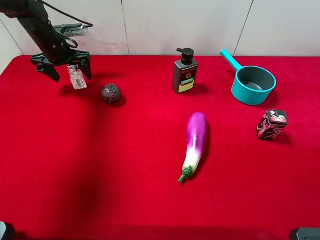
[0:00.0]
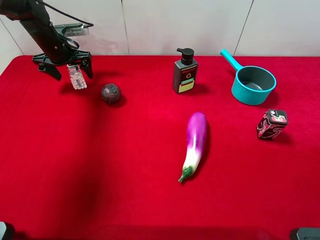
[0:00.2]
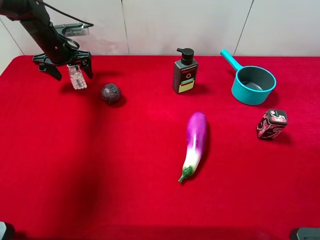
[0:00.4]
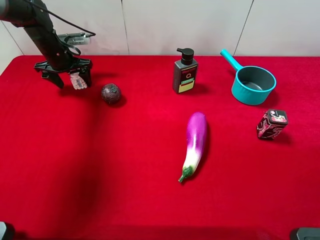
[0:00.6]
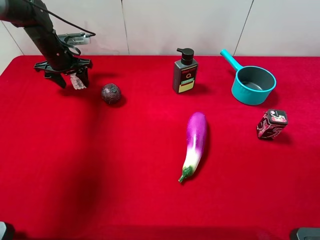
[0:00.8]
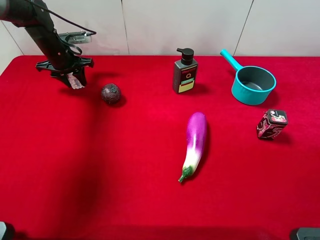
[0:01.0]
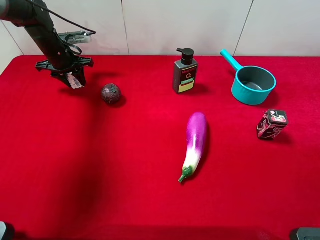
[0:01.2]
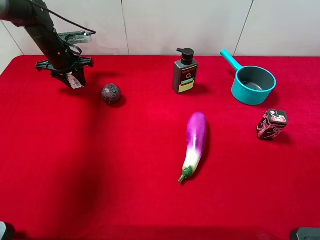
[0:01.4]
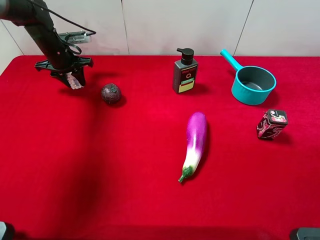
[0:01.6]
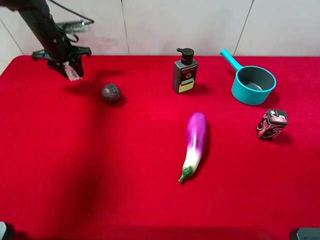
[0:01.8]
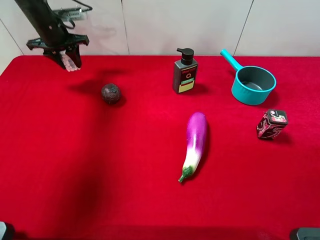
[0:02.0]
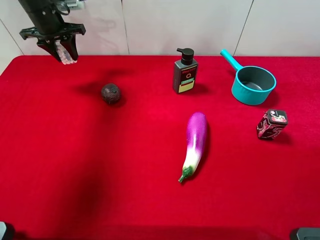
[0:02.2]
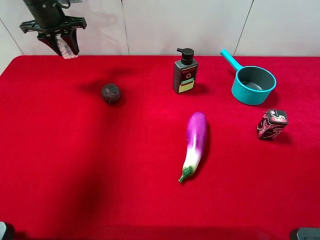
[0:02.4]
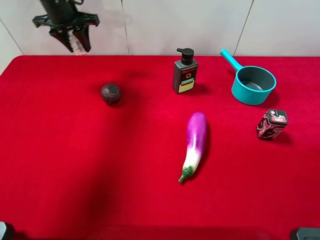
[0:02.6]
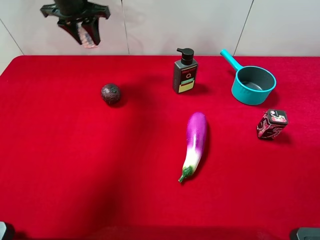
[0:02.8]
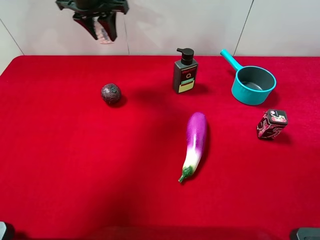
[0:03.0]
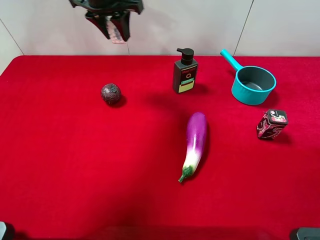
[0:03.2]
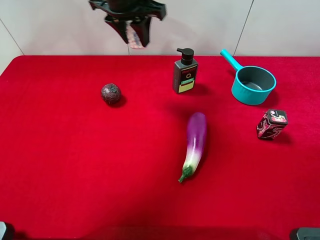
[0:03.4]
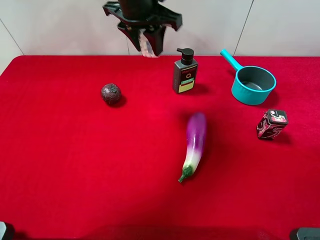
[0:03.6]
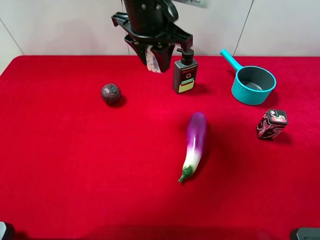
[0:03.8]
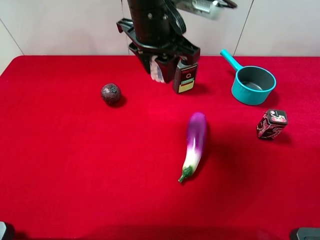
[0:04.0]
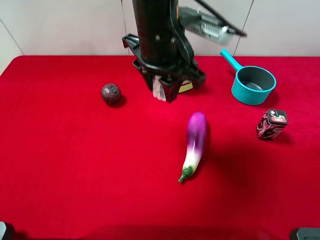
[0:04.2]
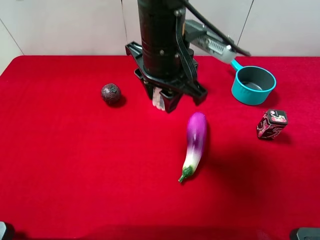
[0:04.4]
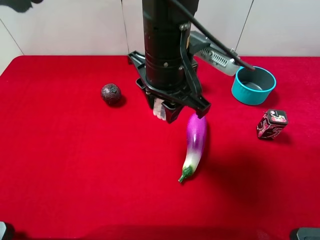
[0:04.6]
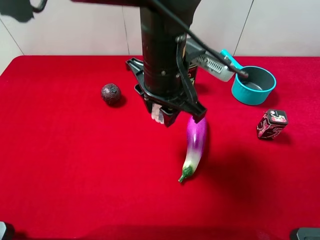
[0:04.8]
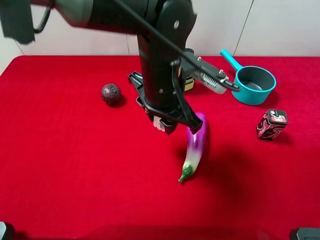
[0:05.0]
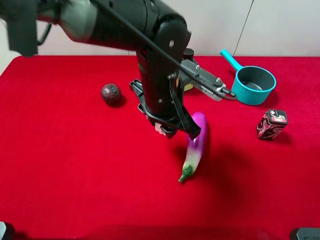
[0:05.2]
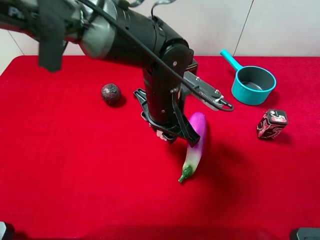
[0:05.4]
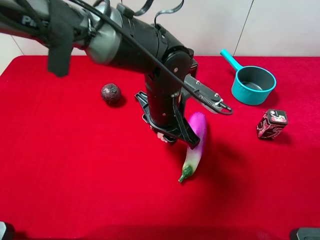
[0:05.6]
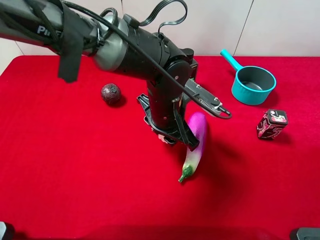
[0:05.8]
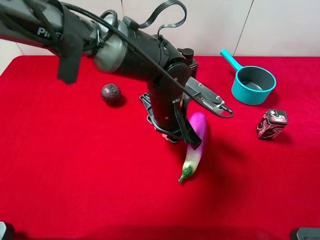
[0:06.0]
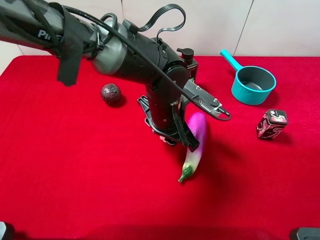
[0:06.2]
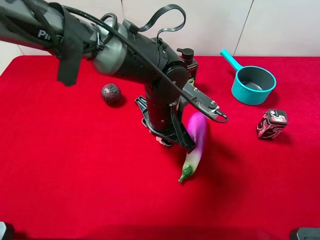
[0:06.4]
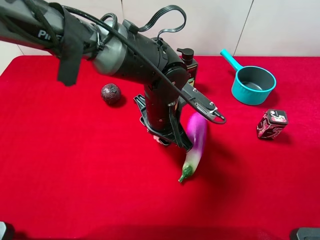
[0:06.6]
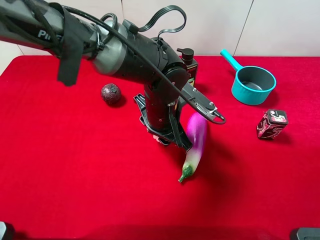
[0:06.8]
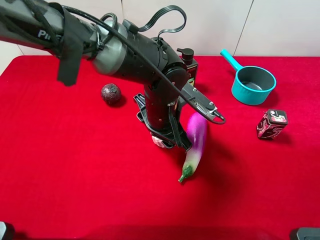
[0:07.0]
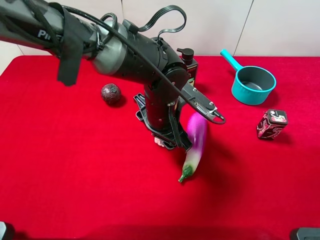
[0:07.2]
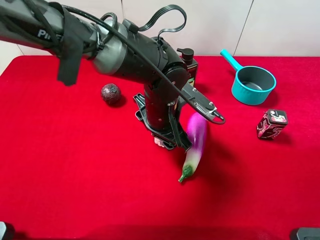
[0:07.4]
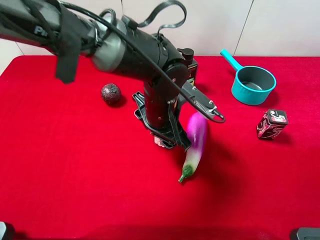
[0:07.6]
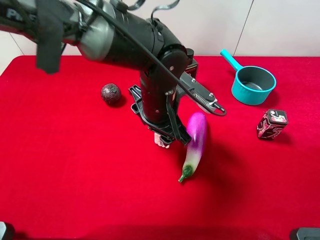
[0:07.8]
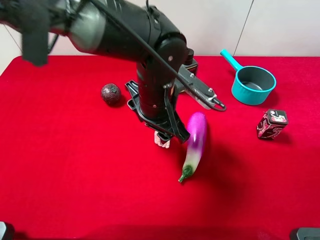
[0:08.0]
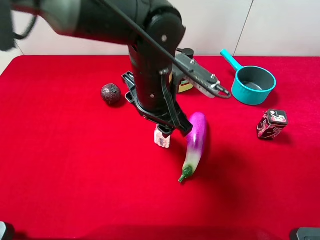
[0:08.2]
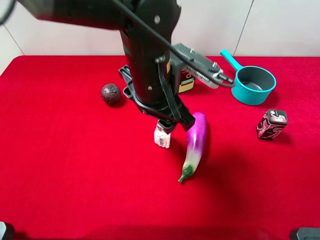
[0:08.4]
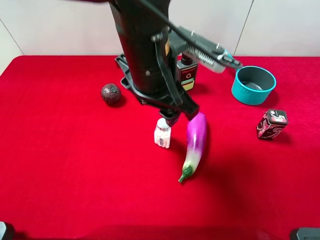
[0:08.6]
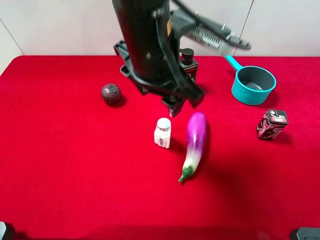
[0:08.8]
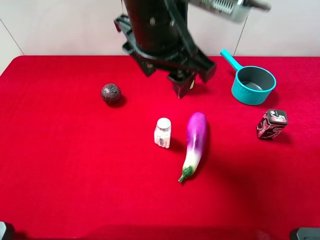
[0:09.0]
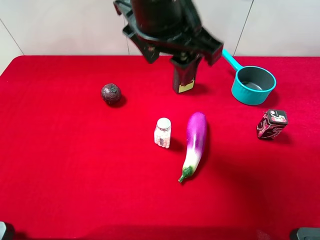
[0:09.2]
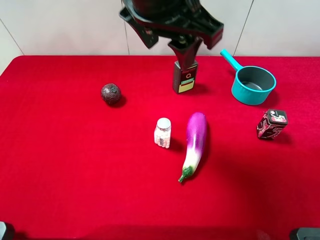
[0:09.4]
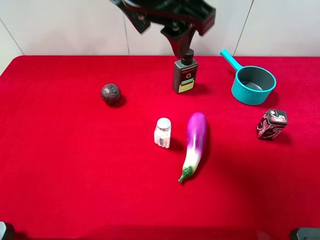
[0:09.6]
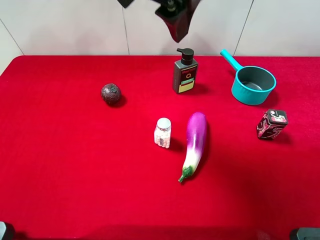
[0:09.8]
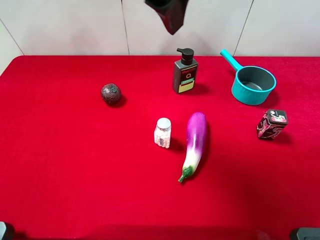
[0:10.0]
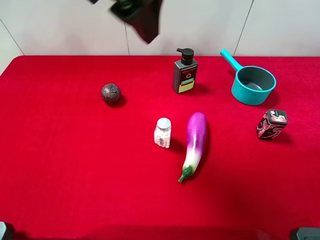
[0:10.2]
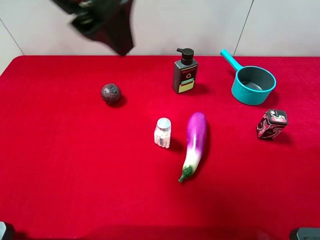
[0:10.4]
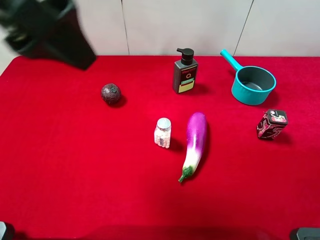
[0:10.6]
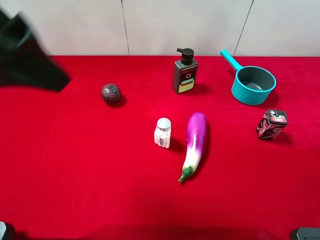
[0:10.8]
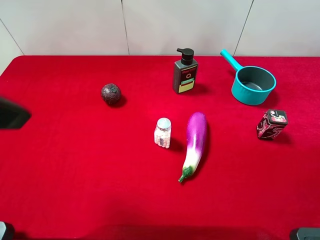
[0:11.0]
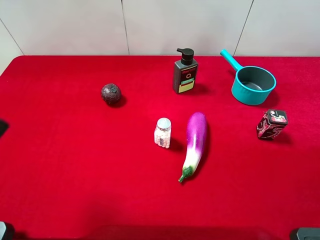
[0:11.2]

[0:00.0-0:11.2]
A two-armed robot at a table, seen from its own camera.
Task of the whole recording: the gripper move the object.
Step, 0:01.4 to 0:08.4: Place the mint candy on the table with the left gripper.
0:00.0 to 0:01.6: The left gripper closes its fingers.
0:01.6 to 0:03.2: The left gripper is displaced upward and to the right by approximately 25 cm.
0:03.2 to 0:04.8: The left gripper heads backward and to the right, covering approximately 20 cm.
0:04.8 to 0:06.4: The left gripper goes approximately 10 cm downward.
0:06.4 to 0:08.0: The left gripper opens its fingers.
0:08.0 to 0:09.6: The left gripper moves upward, approximately 20 cm.
0:09.6 to 0:11.2: The left gripper moves to the left and backward, approximately 25 cm, and opens its fingers.

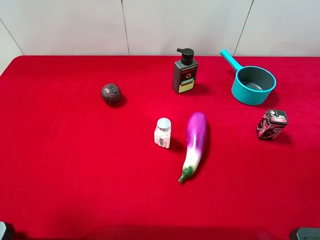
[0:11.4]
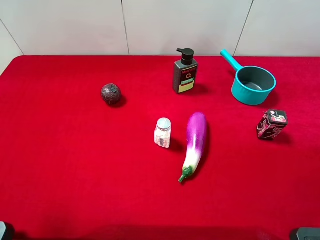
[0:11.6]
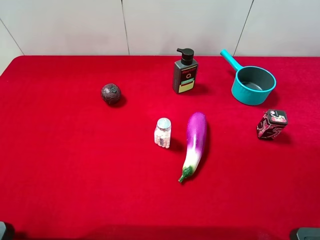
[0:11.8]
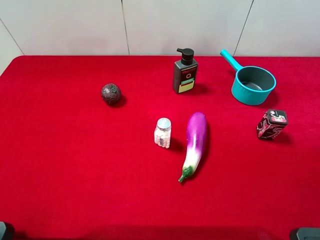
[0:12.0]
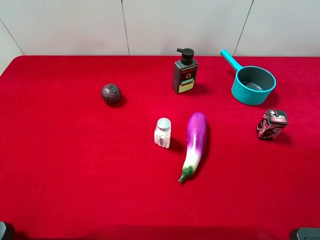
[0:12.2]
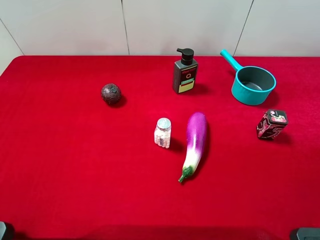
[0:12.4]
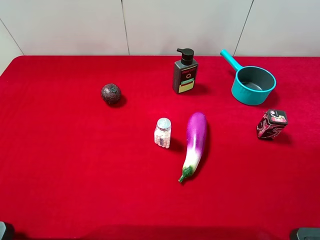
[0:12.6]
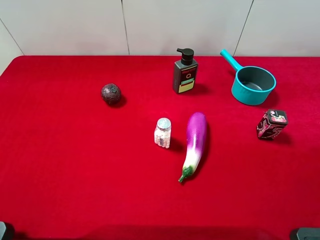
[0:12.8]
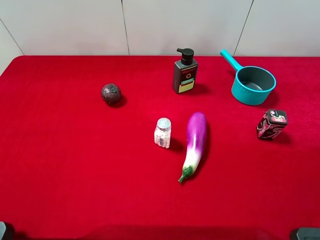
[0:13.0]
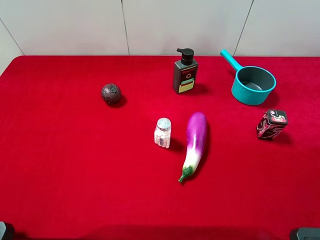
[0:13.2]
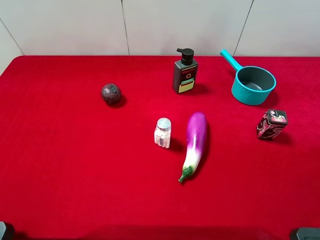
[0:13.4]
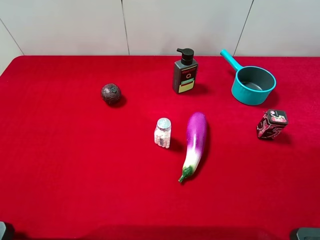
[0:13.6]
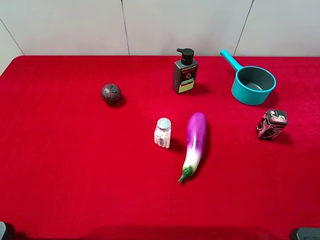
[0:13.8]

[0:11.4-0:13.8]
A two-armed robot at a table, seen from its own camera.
Task of the whole recording: the gripper move the object.
0:12.6 to 0:13.8: Neither gripper changes place.

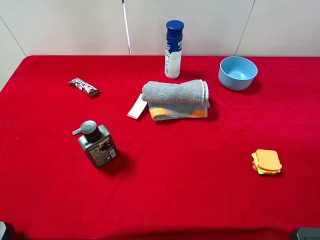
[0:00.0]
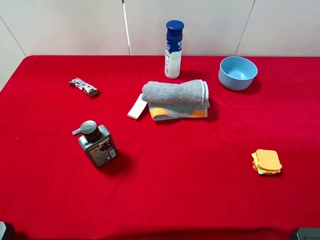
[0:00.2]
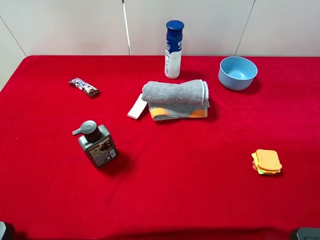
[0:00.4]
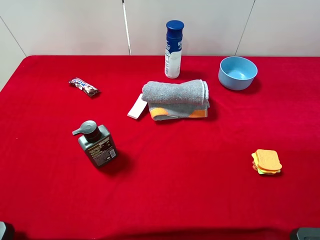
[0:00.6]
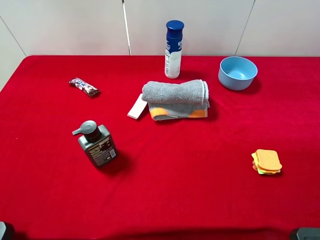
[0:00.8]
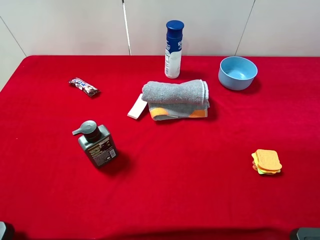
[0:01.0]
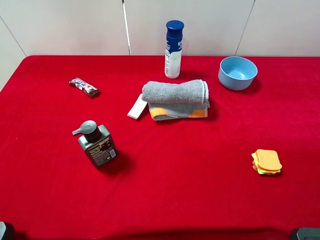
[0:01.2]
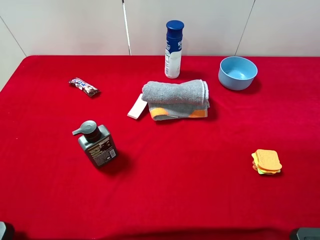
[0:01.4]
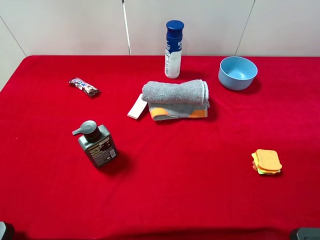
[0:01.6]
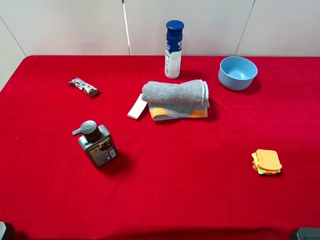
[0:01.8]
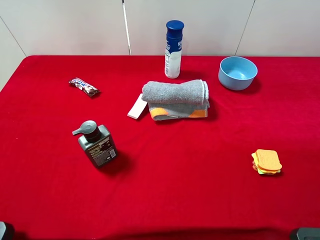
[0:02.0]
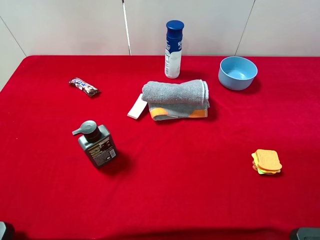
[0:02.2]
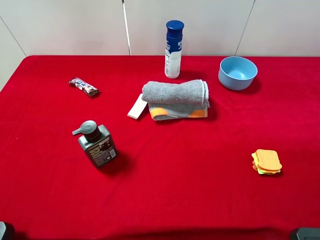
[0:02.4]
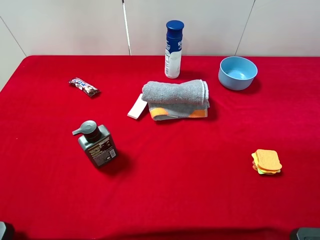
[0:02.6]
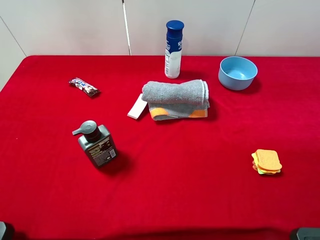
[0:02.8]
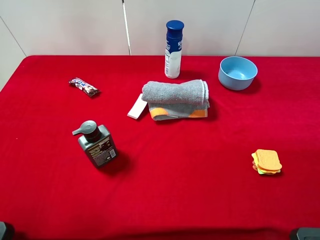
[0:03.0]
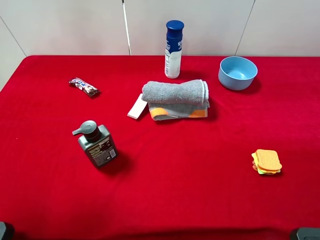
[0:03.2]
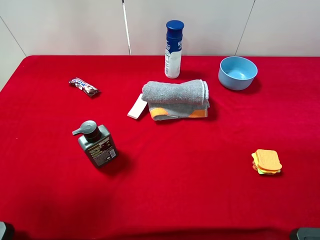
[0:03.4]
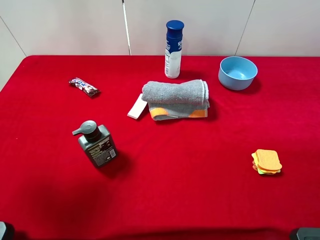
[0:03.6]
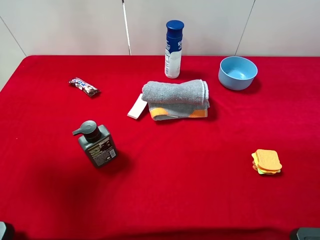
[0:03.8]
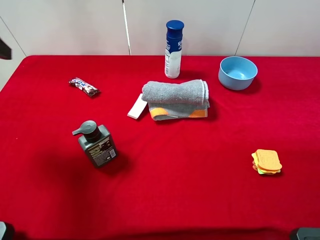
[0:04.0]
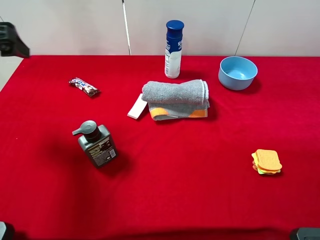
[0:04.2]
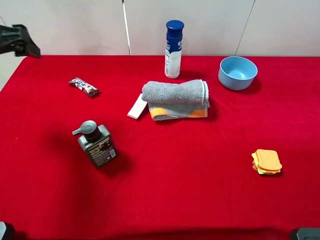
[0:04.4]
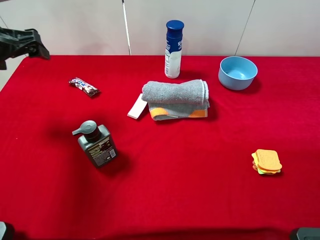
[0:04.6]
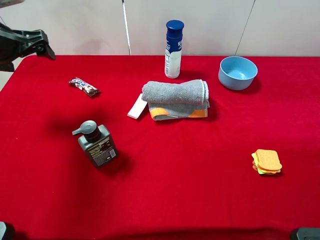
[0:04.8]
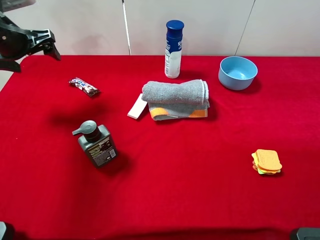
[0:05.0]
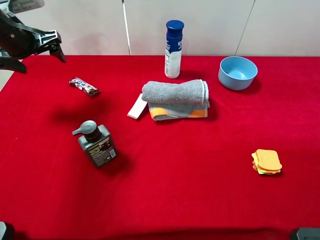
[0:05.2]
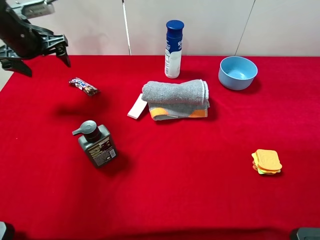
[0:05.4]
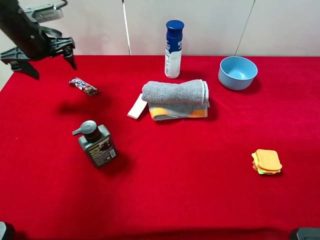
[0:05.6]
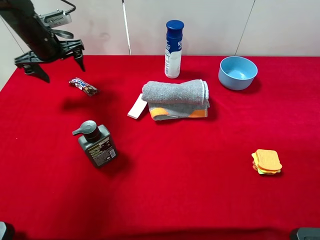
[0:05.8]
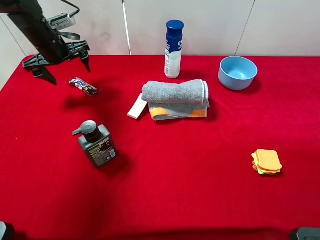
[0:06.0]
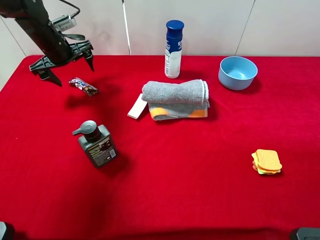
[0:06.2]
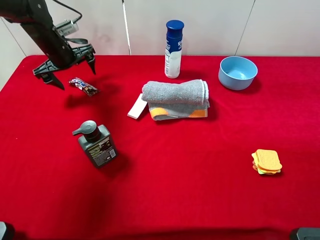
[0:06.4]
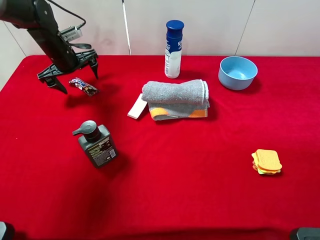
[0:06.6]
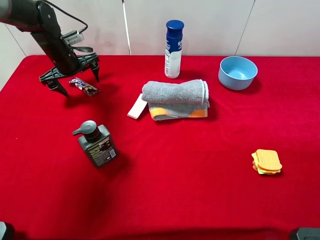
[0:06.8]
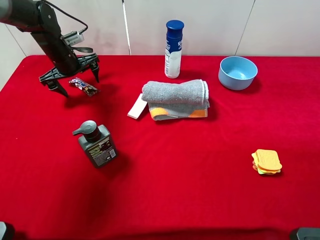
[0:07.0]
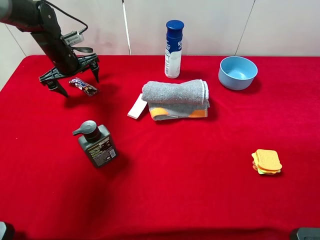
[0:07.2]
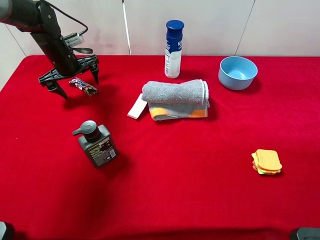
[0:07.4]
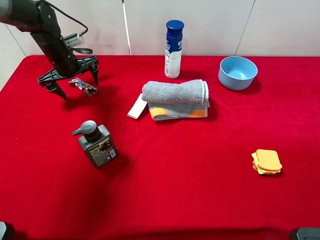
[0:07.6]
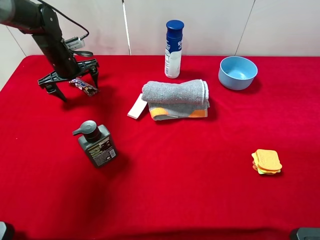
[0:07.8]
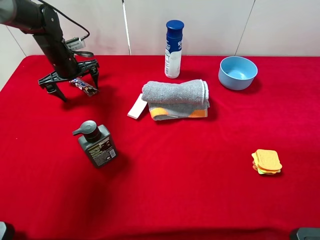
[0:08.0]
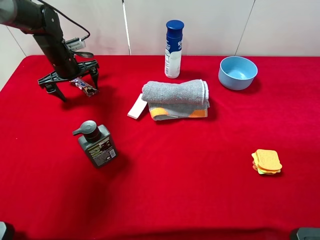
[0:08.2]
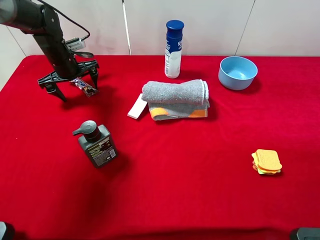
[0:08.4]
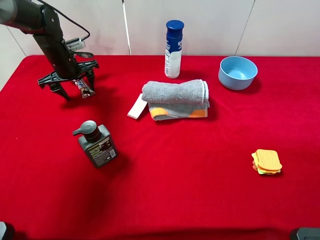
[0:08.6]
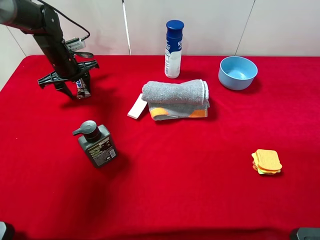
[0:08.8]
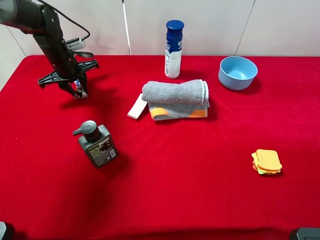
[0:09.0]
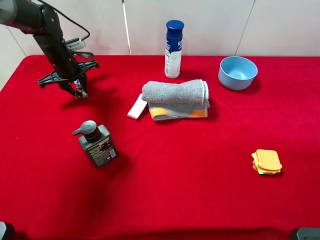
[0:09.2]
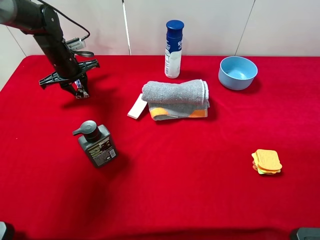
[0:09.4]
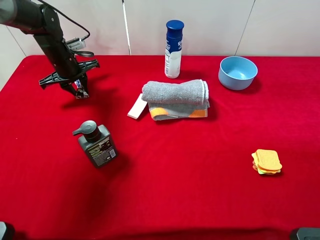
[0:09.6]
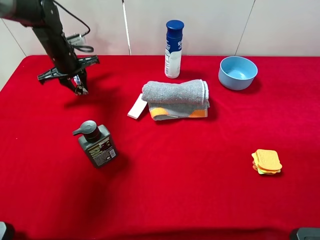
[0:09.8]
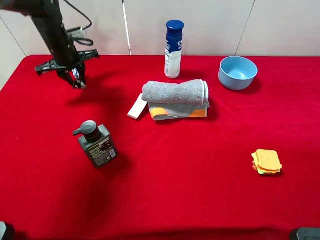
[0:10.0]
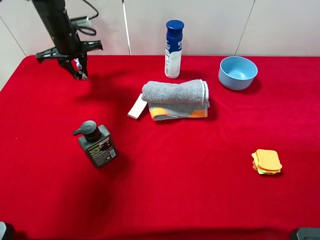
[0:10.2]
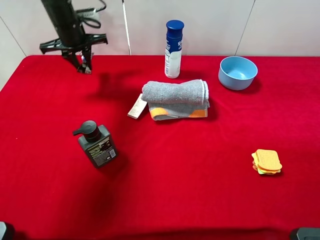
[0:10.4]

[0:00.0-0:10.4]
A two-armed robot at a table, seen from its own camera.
Task of the whole recording: the gripper move the object.
Step, 0:00.0 to 0:09.0: Grasp the snickers with the left gripper.
0:00.0 to 0:01.4: Both grippers stay about where they are.
0:03.0 to 0:04.4: The left gripper goes approximately 20 cm forward.
0:04.4 to 0:06.0: The left gripper heads forward and downward, covering about 20 cm.
0:06.0 to 0:07.4: The grippers move only a little.
0:07.4 to 0:09.0: The left gripper closes up.
0:09.0 to 0:10.4: The left gripper travels upward by approximately 10 cm.
